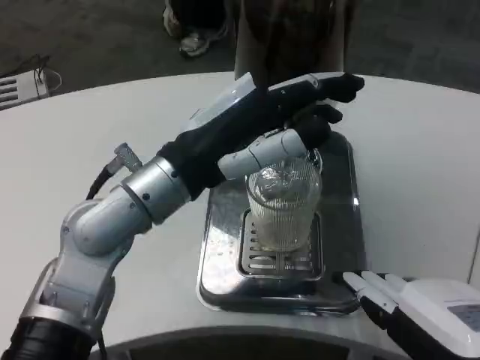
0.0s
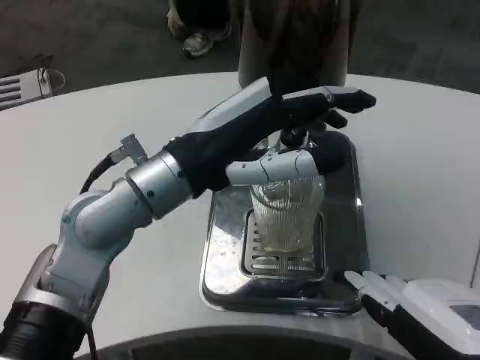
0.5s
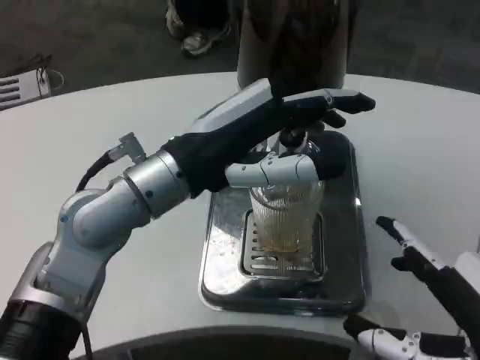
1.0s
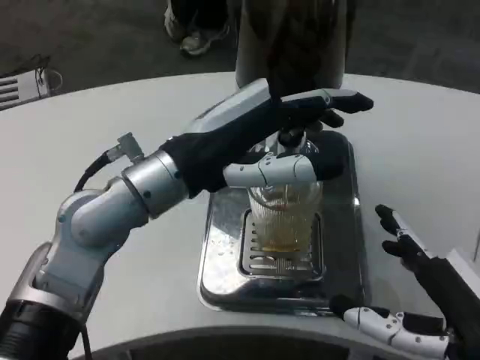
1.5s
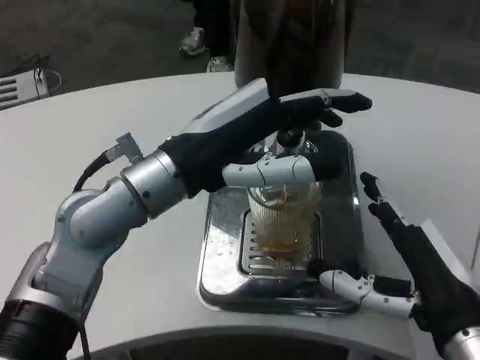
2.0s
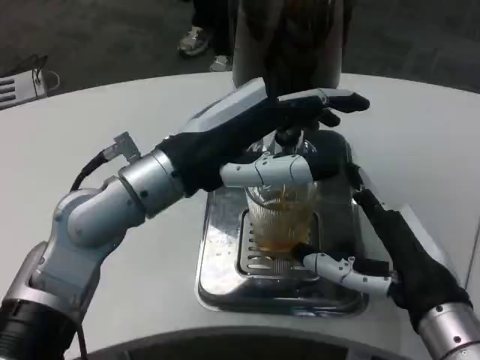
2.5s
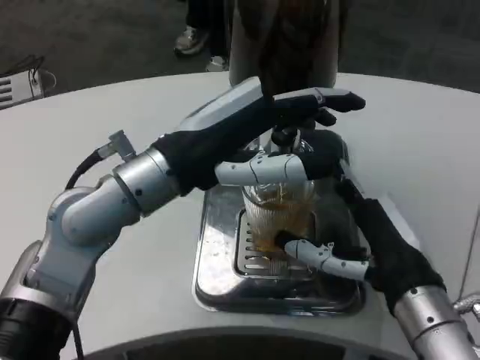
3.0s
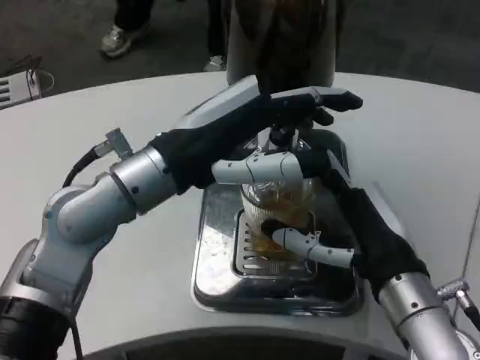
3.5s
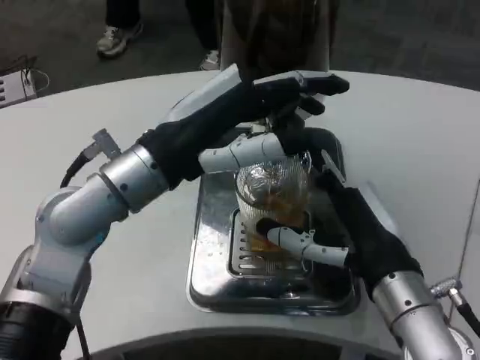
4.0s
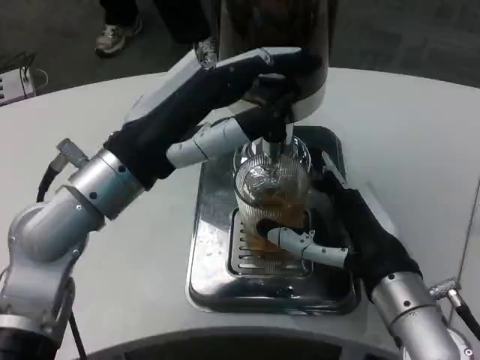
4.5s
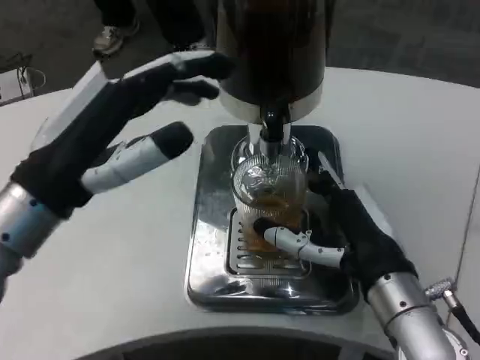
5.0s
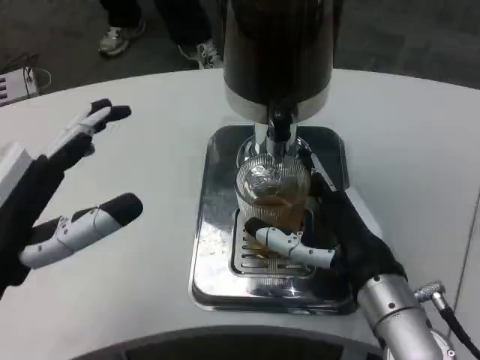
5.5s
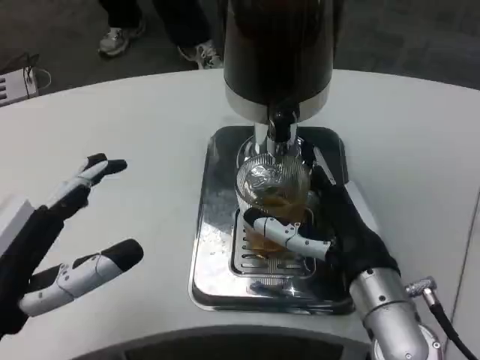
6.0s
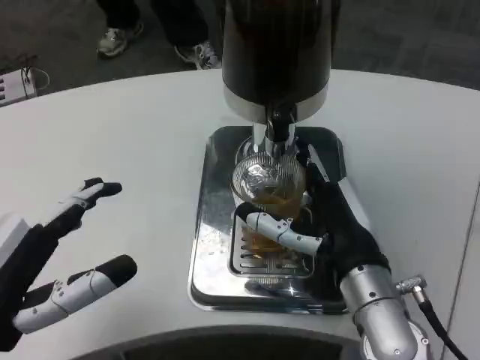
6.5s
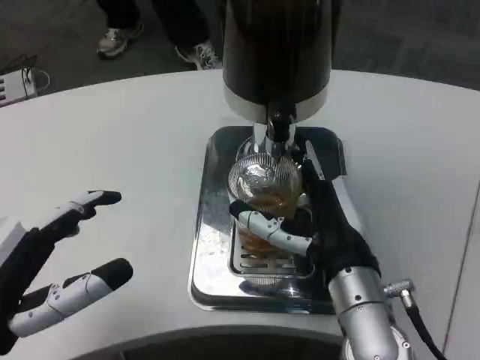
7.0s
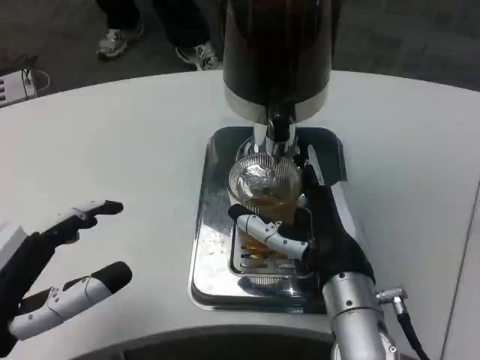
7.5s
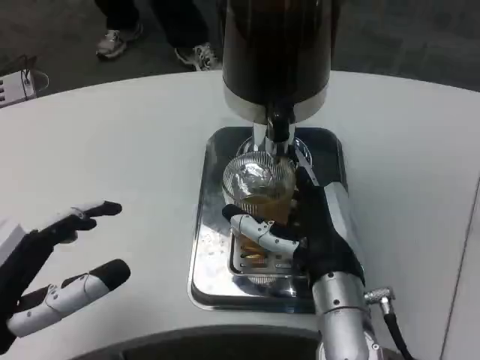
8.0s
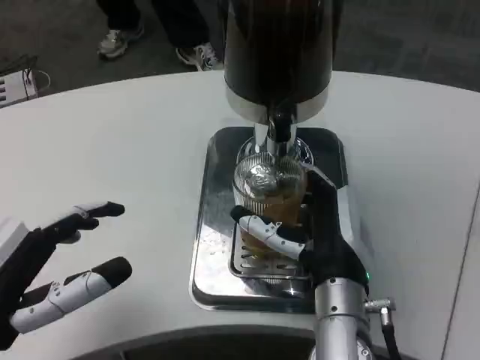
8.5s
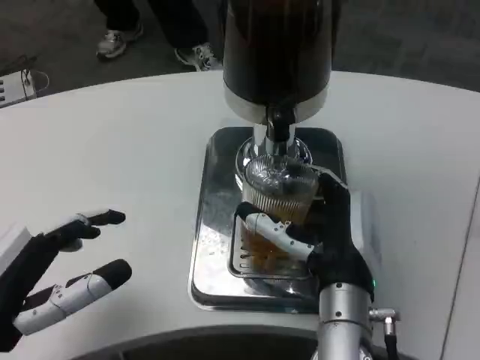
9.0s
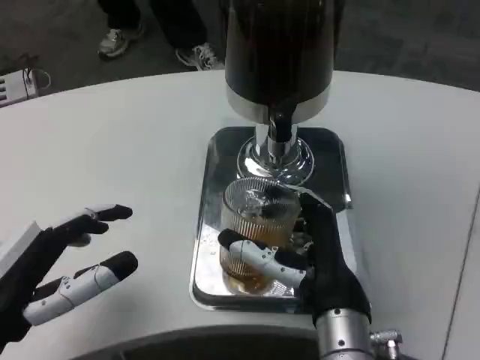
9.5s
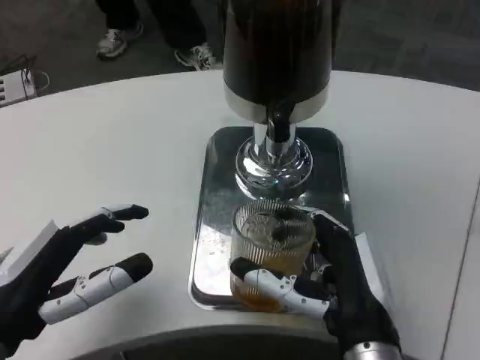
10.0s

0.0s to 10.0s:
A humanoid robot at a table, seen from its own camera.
Task of the whole recording: Grasp the cup under the faucet to collect the drink, then remove the cup.
0.0s to 2.0s: The right hand heads forward and downward, covering about 10 cm.
2.0s to 4.0s: The right hand goes approximately 5 cm forward.
4.0s to 6.0s: The left hand travels backward, to the left and downward by approximately 20 cm.
8.0s to 10.0s: The right hand shifts some 5 cm backward.

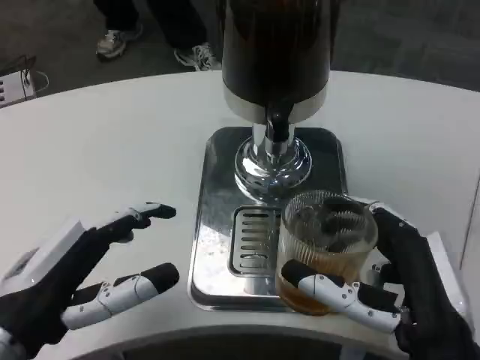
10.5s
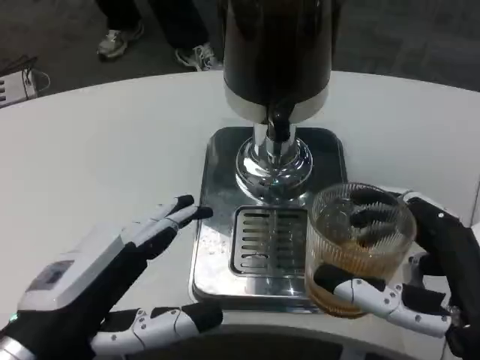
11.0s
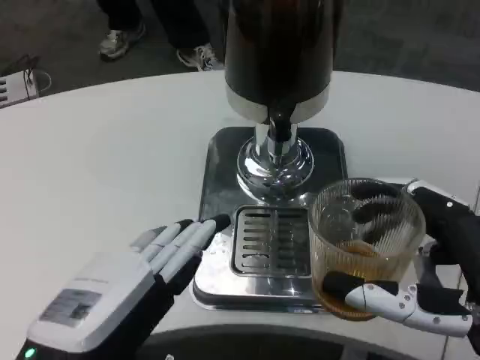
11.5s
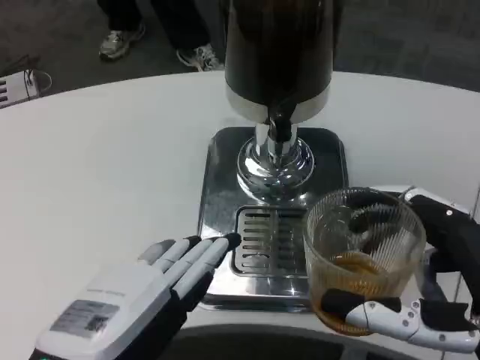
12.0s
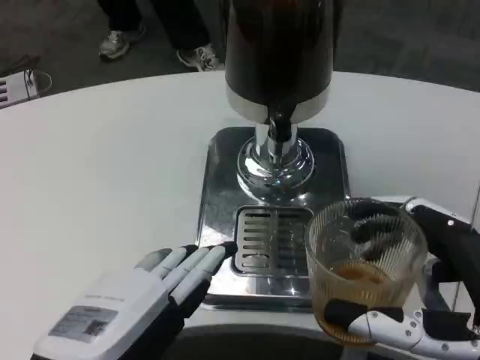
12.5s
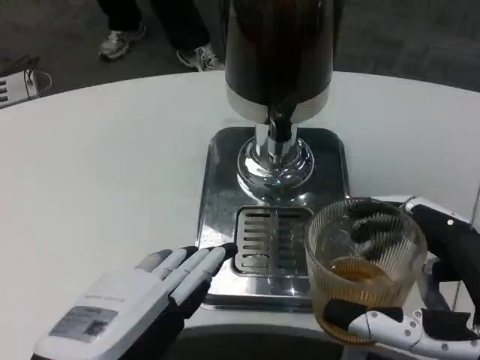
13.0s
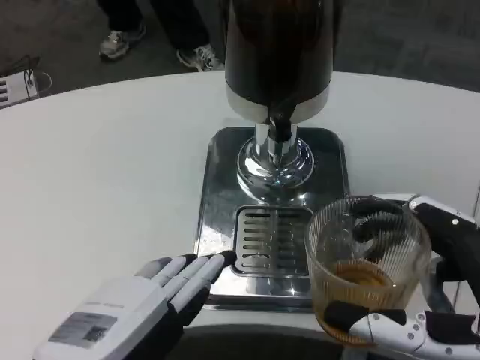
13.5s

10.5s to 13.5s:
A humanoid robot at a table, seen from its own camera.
Task of the whole recording: Grasp the cup under the faucet to collect the drink, then remove the cup.
10.5s to 12.0s: The left hand shifts roughly 10 cm backward and to the right. The right hand heads to the right, covering about 5 cm.
12.0s to 13.5s: Both hands stay about where they are.

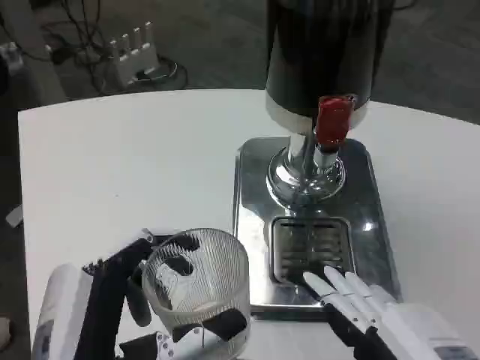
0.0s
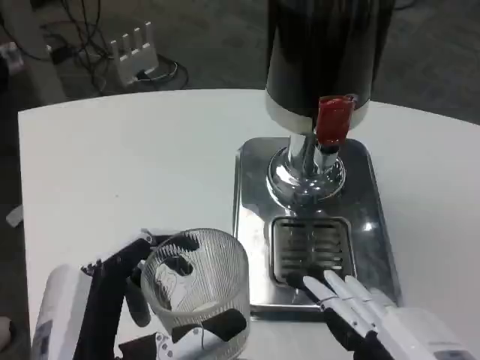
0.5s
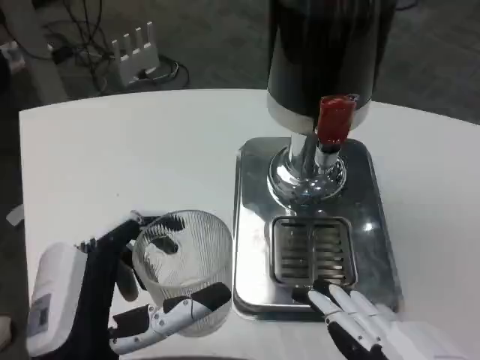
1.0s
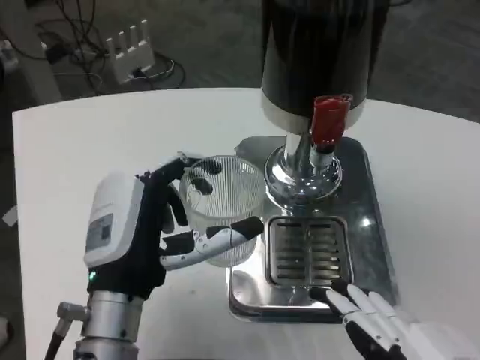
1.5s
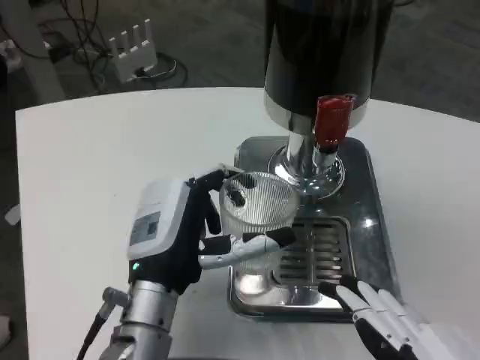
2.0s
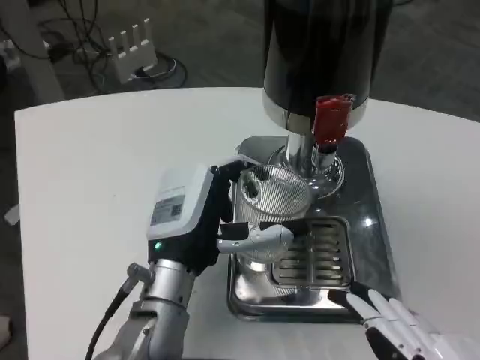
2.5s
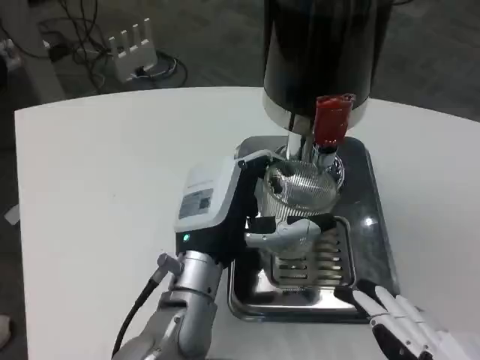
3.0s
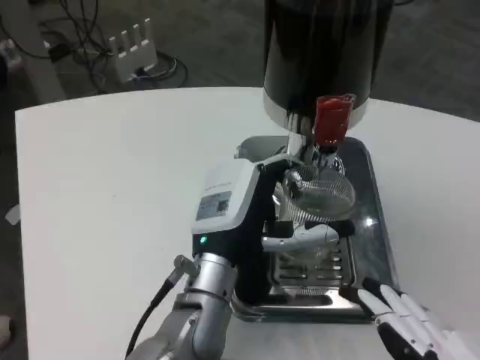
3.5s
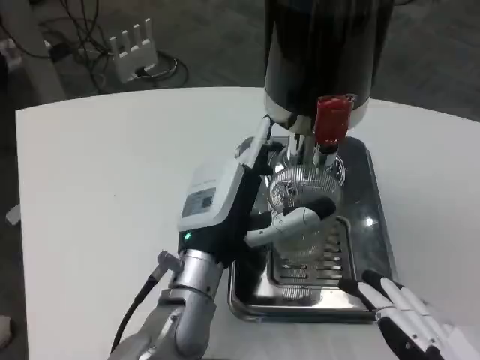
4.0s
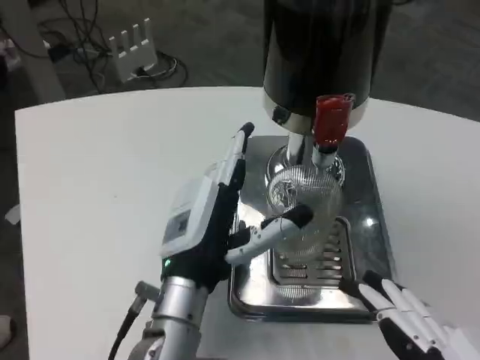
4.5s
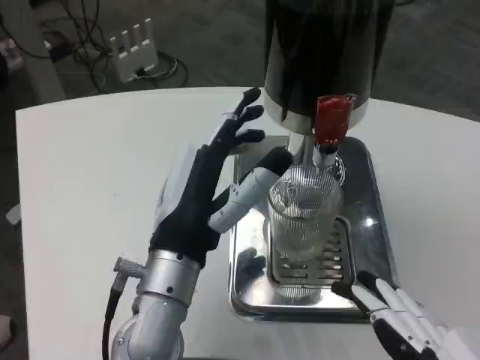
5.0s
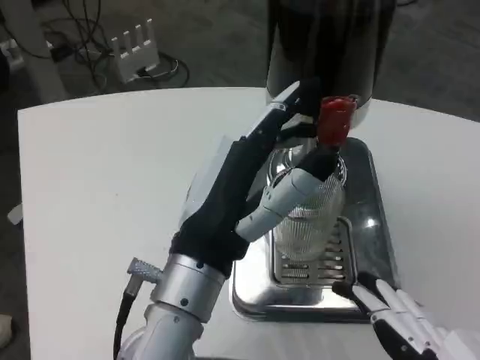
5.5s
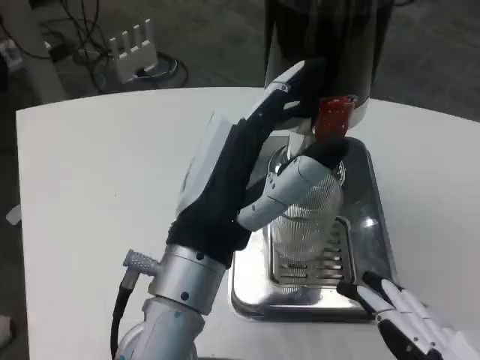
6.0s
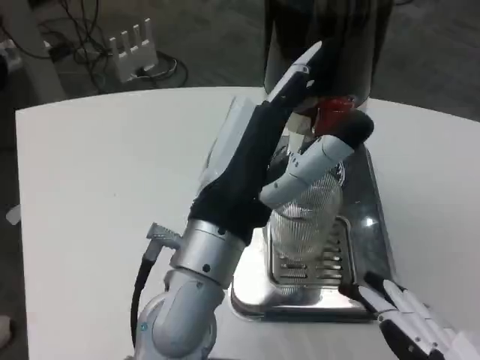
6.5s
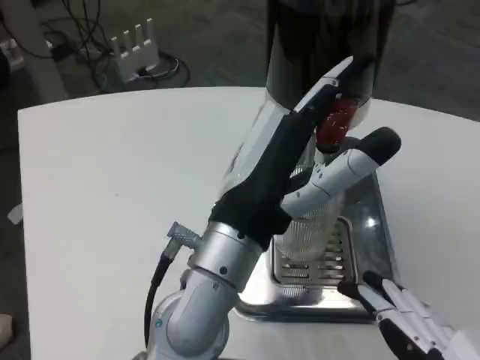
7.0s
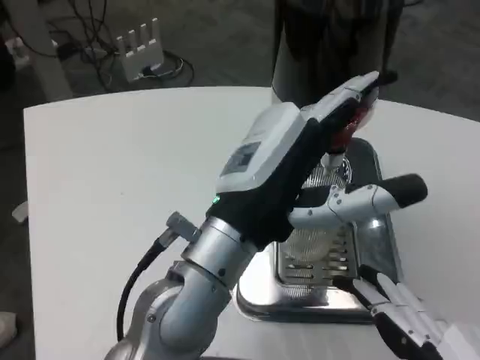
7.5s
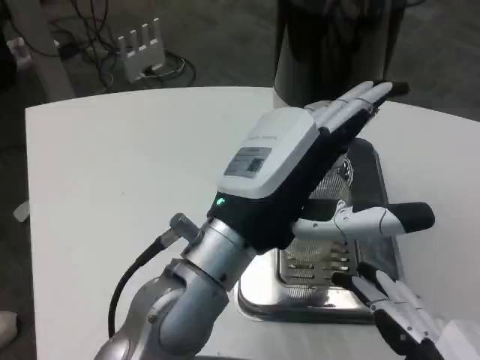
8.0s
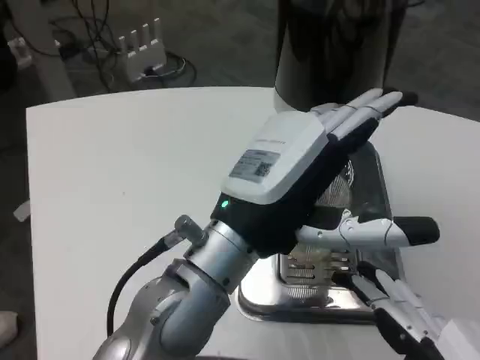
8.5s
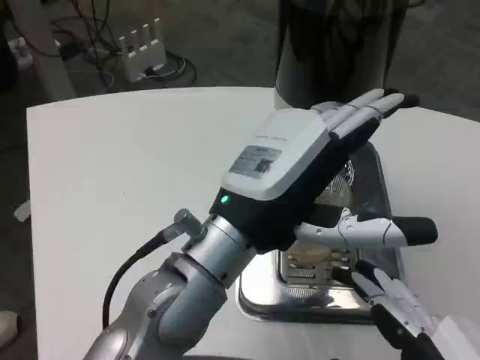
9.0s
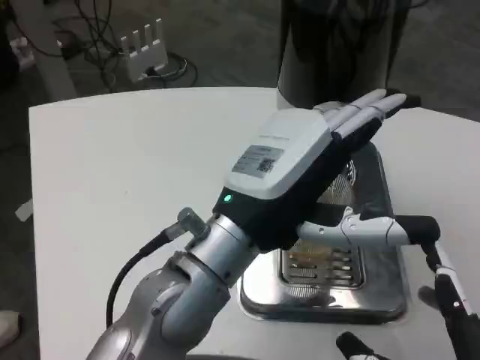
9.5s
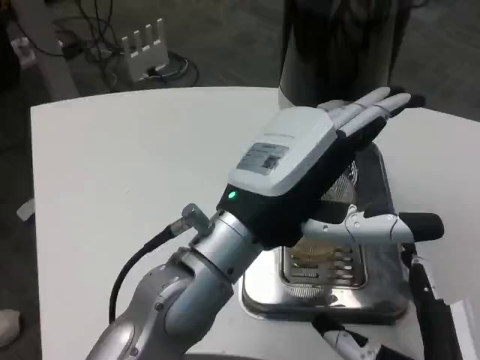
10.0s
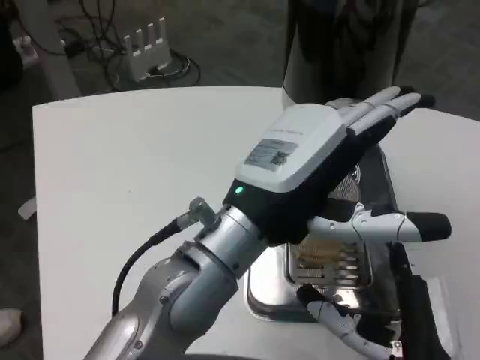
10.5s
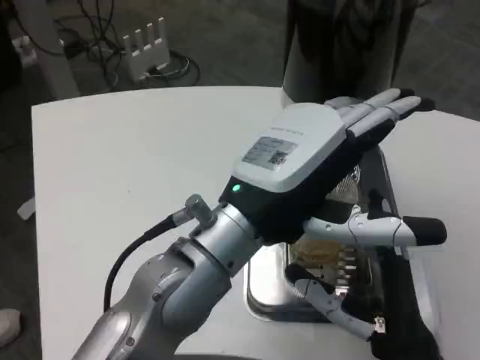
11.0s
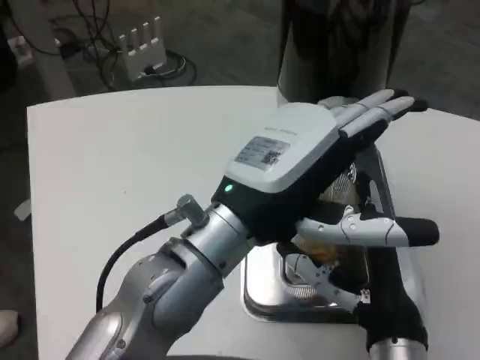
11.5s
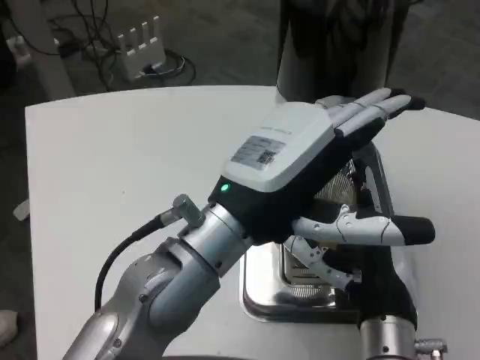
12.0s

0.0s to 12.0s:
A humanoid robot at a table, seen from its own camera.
Task of the whole recording: Grasp the cup under the faucet to collect the drink, then remove the cup.
0.0s to 2.0s: The left hand is displaced forward by about 15 cm.
2.0s to 4.0s: The left hand ends up some 5 cm from where it was.
4.0s to 6.0s: The left hand shifts roughly 10 cm backward and upward.
8.0s to 10.0s: The right hand goes approximately 10 cm forward and downward.
10.0s to 12.0s: The right hand goes roughly 10 cm forward.
